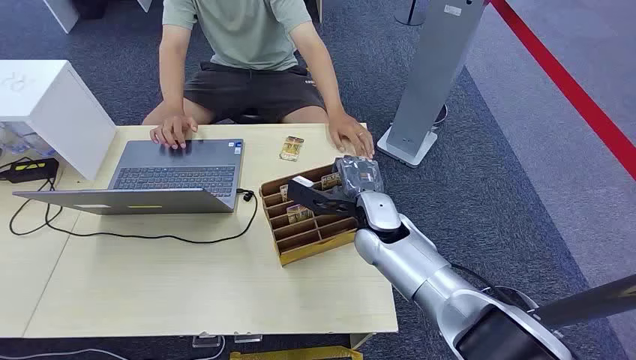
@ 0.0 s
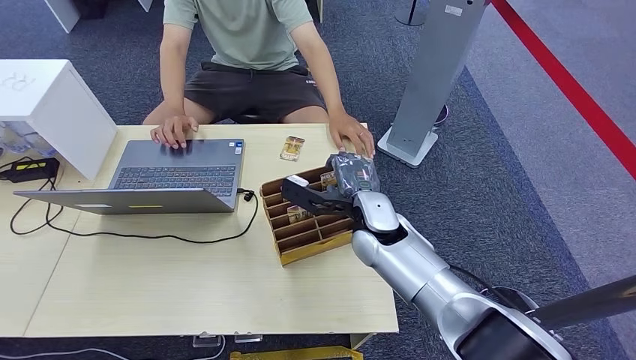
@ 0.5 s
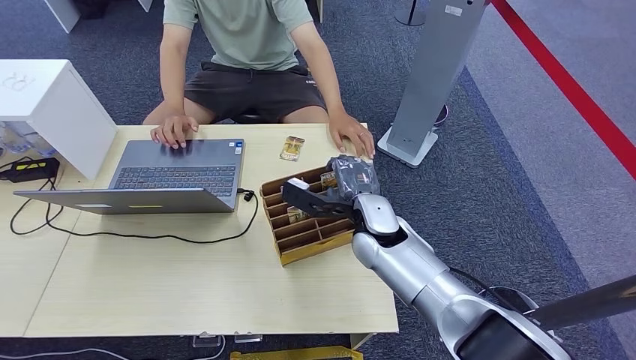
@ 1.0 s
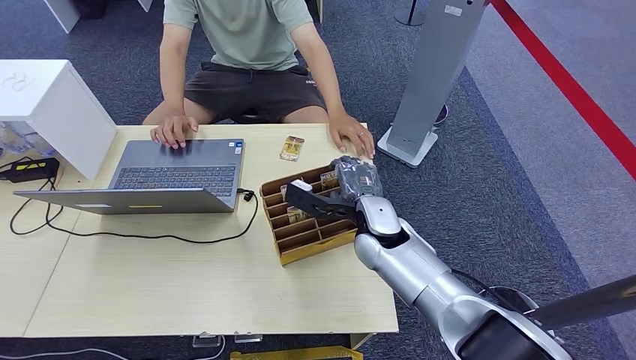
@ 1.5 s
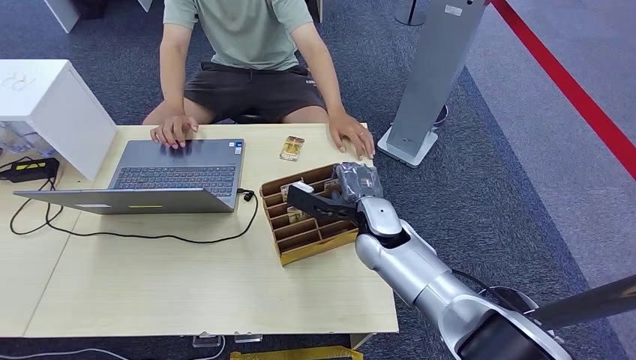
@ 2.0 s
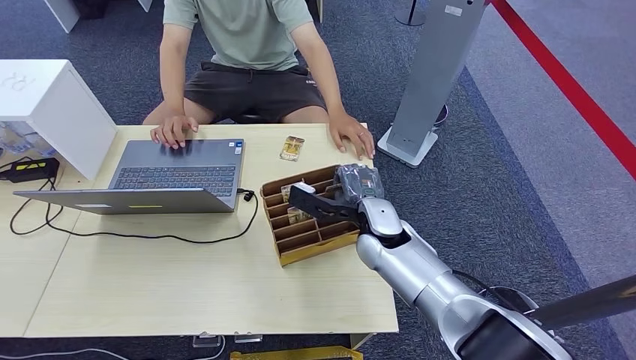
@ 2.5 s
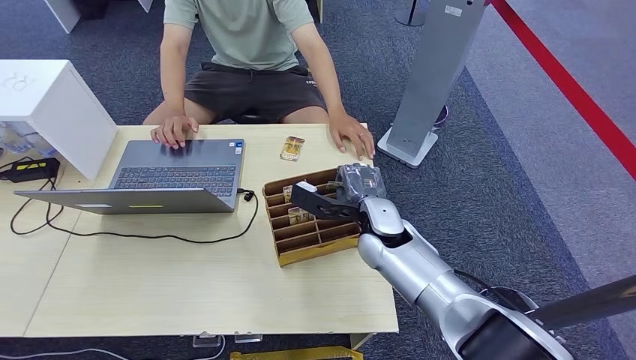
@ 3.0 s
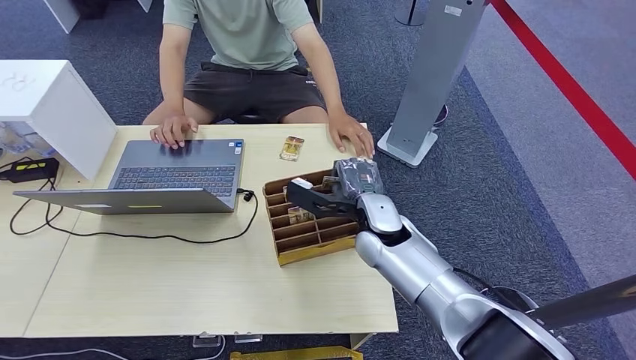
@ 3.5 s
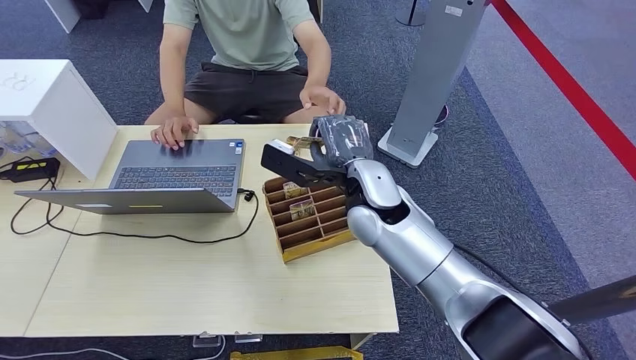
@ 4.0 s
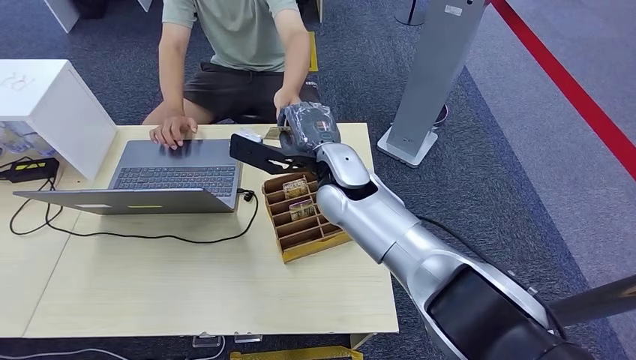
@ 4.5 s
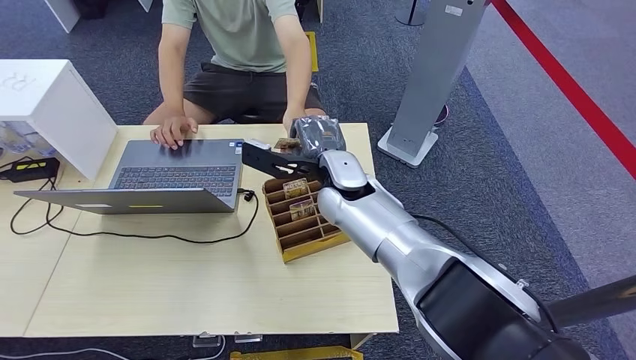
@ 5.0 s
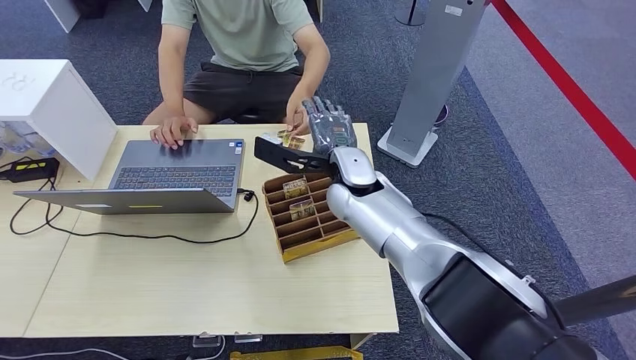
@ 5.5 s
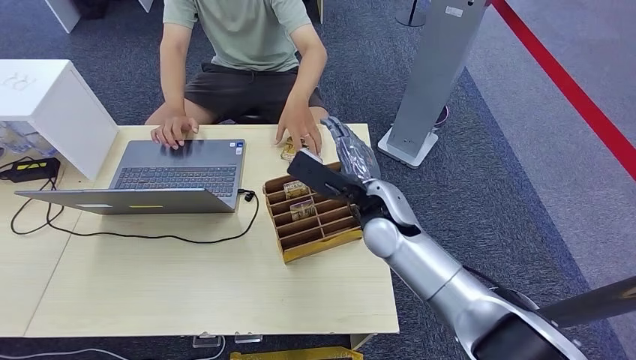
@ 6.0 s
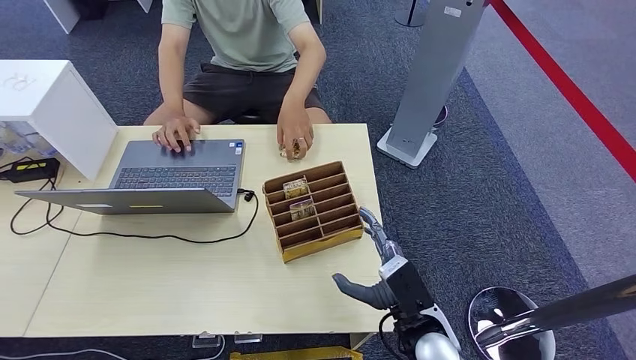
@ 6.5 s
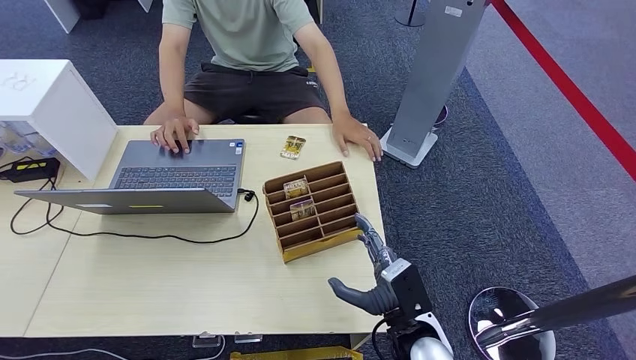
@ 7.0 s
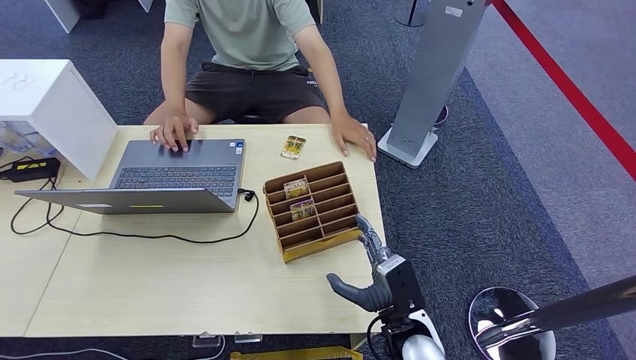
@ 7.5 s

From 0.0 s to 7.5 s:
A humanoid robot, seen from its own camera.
Task of the whole recording: Pick up the card and hand it over to the target person.
Step, from 0.0 s to 3.5 s: Pick up the key card from the card box.
Step, from 4.0 s to 7.5 s: Hand the key card to the target.
From 2.0 s to 4.0 s: The right hand shifts about 10 cm upward.
From 4.0 s to 5.5 s: The hands make only small movements.
From 5.5 s to 7.5 s: The right hand is displaced downward and backward by approximately 30 cm.
